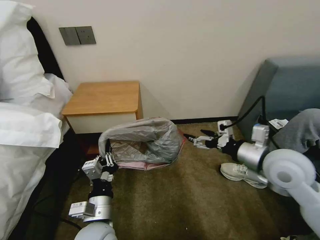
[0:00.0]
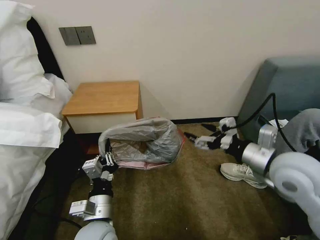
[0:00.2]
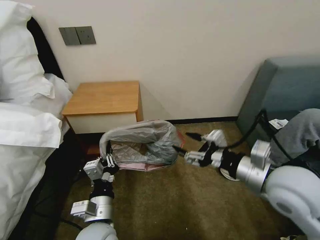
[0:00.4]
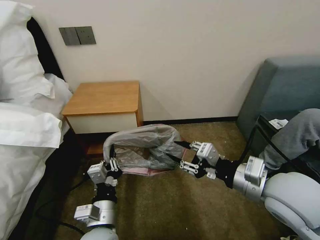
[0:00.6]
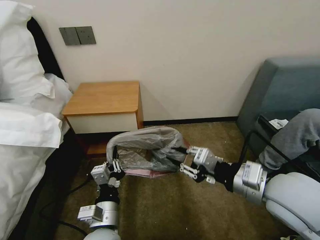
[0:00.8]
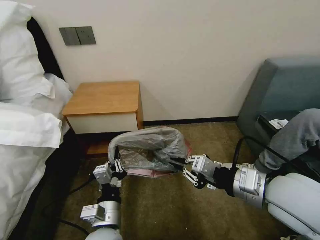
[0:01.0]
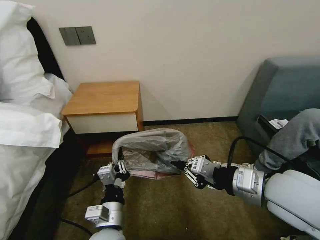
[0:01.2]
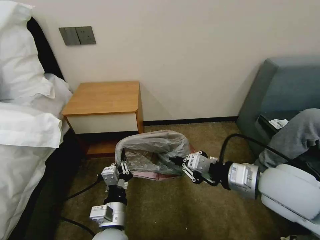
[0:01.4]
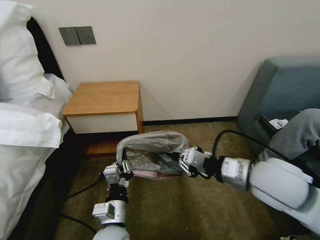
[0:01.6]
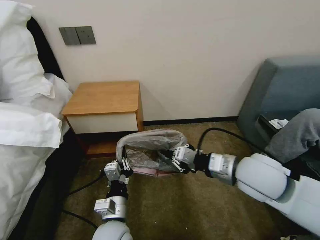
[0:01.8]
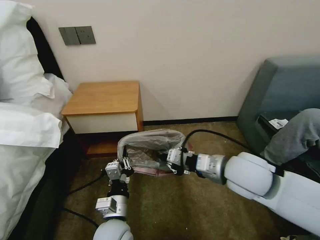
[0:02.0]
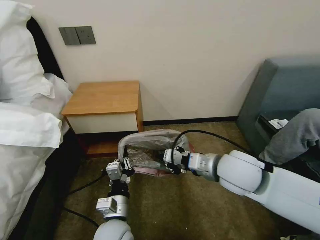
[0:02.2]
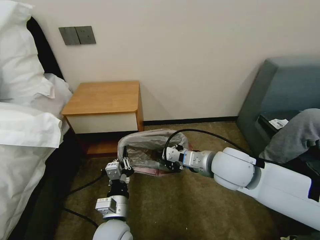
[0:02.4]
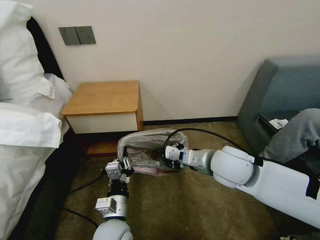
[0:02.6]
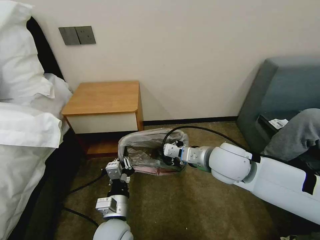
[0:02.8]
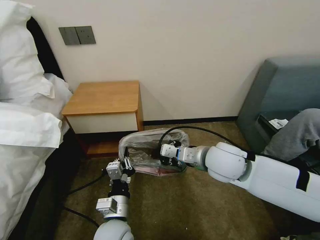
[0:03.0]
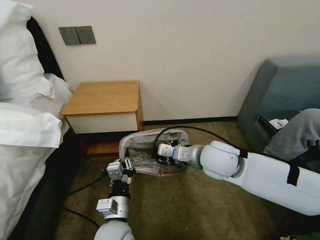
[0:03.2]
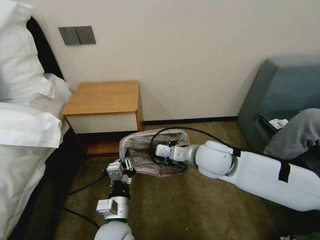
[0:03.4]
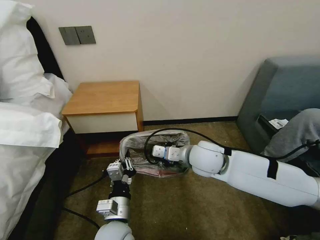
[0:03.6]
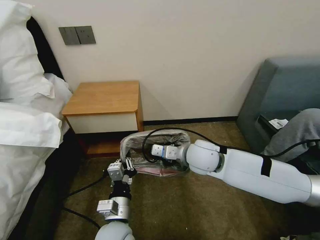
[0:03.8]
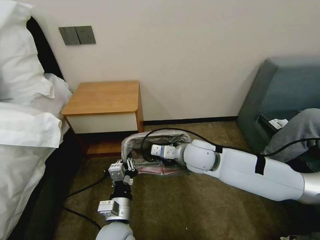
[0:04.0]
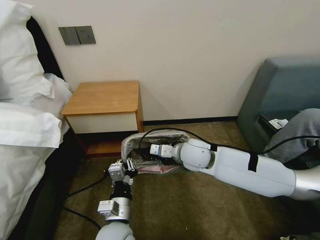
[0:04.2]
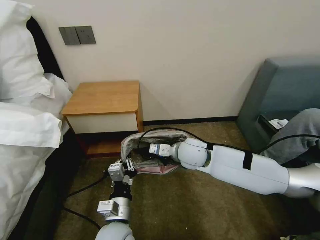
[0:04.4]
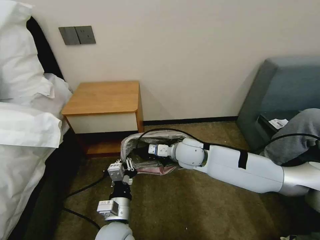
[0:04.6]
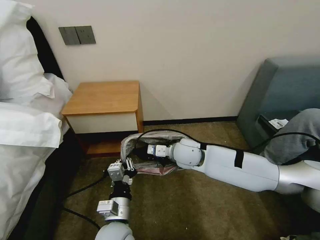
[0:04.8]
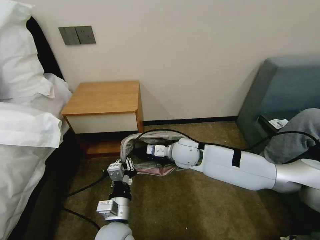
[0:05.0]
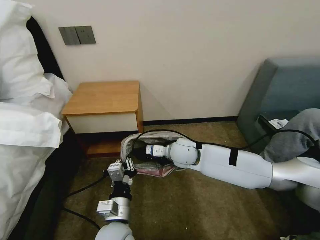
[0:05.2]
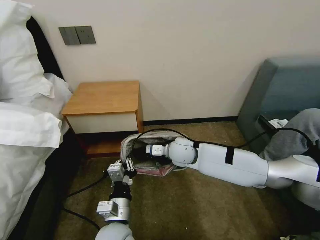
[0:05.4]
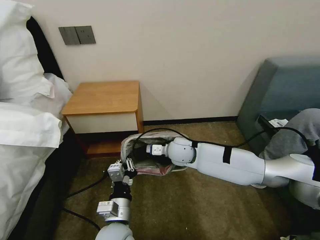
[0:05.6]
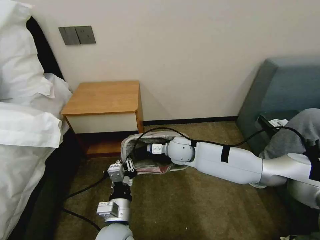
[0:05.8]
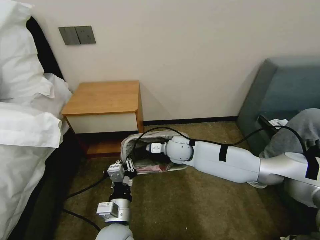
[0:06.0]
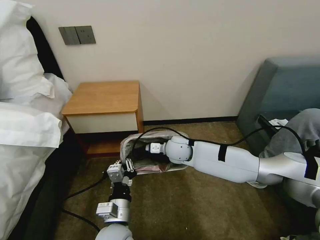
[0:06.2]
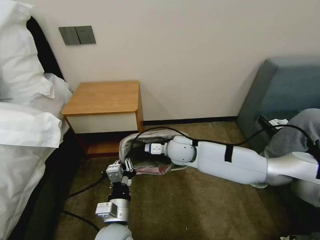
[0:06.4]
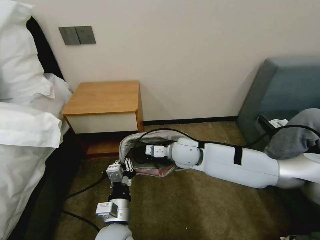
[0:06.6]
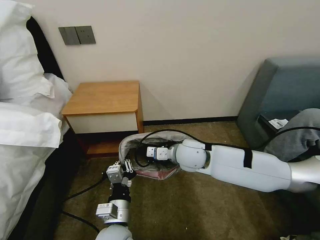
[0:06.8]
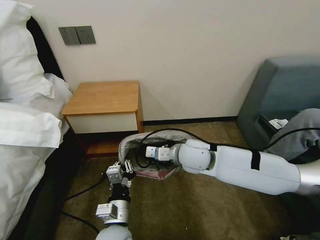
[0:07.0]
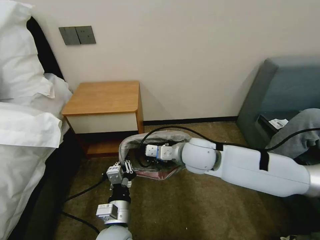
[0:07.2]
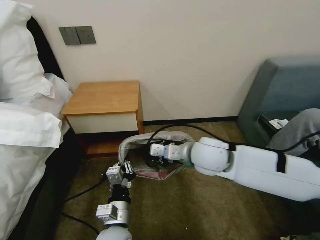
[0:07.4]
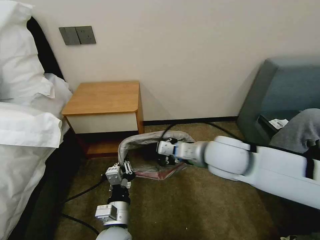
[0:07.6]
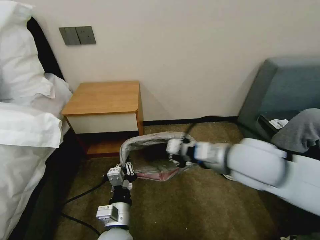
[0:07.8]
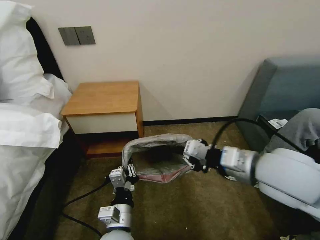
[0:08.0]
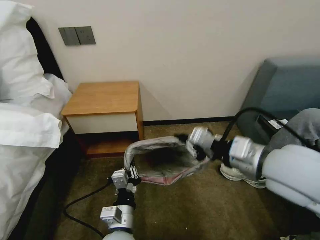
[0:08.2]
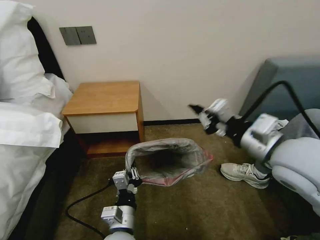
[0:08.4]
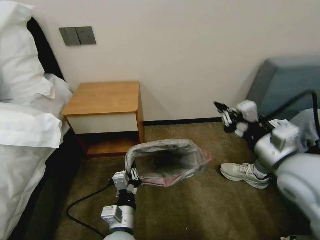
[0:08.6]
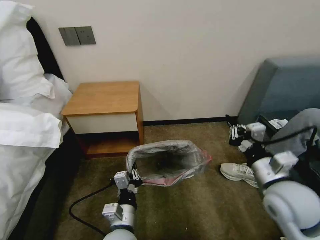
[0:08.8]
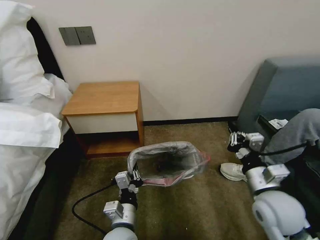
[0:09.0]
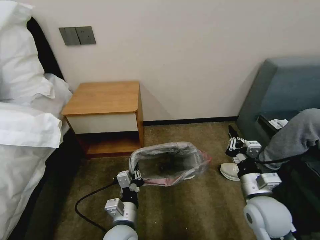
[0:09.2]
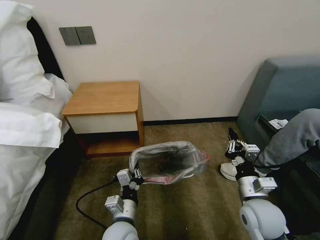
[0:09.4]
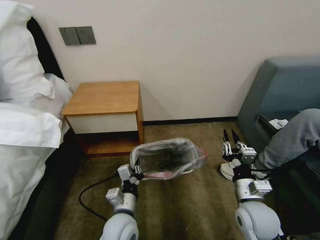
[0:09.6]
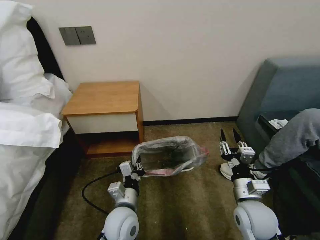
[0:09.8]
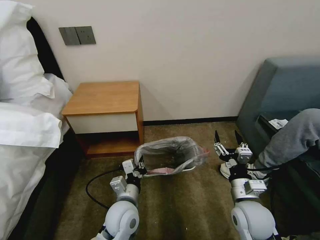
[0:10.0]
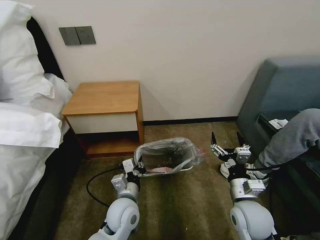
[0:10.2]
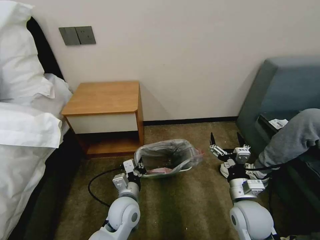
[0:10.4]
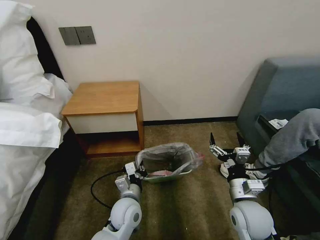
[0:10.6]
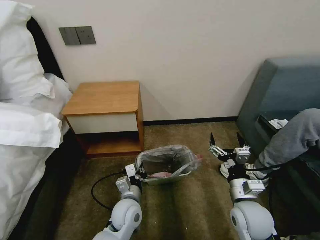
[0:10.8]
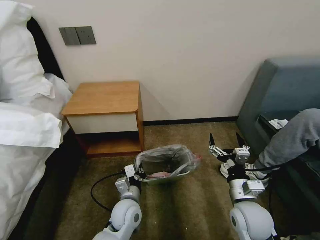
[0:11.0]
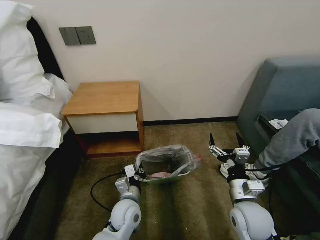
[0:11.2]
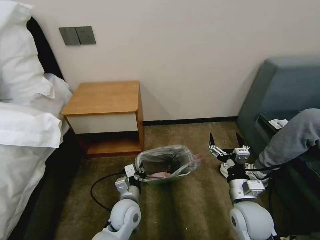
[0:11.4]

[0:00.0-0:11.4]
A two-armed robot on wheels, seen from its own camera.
Task of the whole recording: Pick up the garbage bag from the table and place it over the trash can.
0:00.0 to 0:01.4: The right gripper heads backward and to the left, covering approximately 10 cm, and closes its fingers.
0:01.4 to 0:02.8: The right gripper travels forward and to the left by roughly 10 cm.
0:02.8 to 0:04.2: The right gripper shifts approximately 10 cm to the left, forward and downward.
0:04.2 to 0:05.6: The right gripper changes place by some 5 cm.
0:05.6 to 0:07.2: The right gripper goes about 10 cm upward and backward.
0:07.2 to 0:08.6: The right gripper heads to the right, backward and upward, covering some 20 cm.
0:08.6 to 0:10.0: The right gripper moves downward, some 20 cm, and opens; the left gripper moves forward, about 10 cm.
0:10.0 to 0:11.4: The left gripper shifts by about 5 cm.

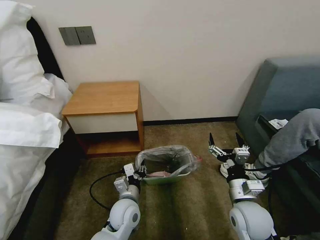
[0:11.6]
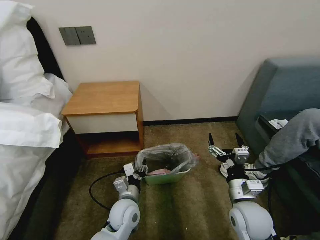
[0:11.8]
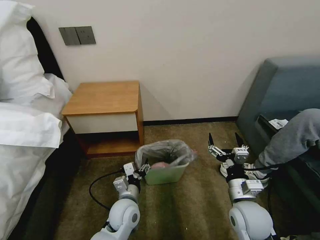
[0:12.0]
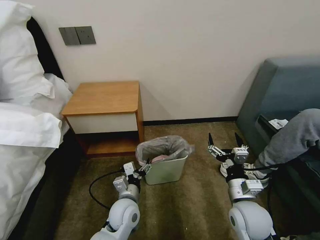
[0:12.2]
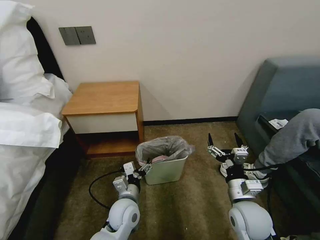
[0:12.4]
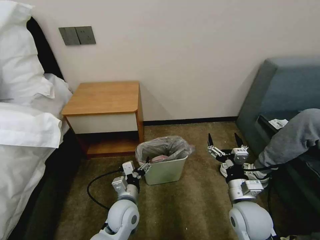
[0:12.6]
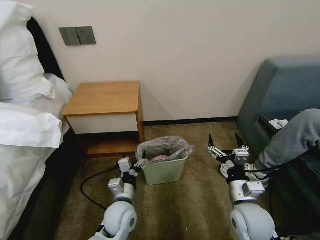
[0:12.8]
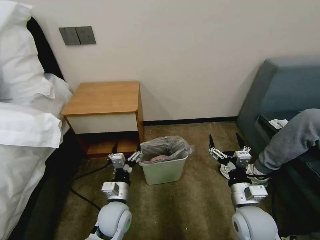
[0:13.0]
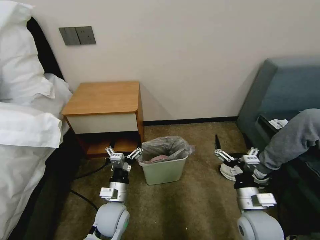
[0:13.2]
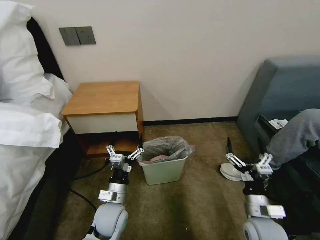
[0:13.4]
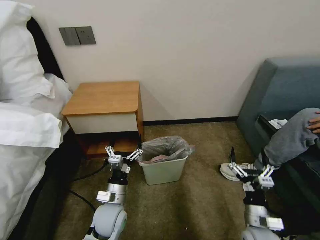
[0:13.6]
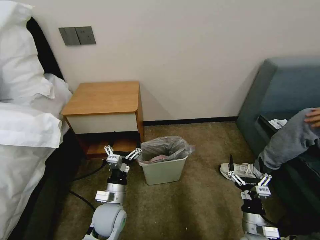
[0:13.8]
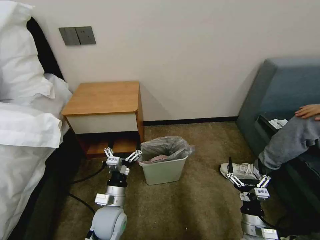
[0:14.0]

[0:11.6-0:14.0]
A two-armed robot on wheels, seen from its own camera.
Task of the whole recording: Pick up the garbage bag from the table and place it over the trash can.
0:11.6 to 0:12.8: The left gripper opens its fingers.
0:12.8 to 0:14.0: The right gripper is displaced downward, backward and to the right by approximately 15 cm.

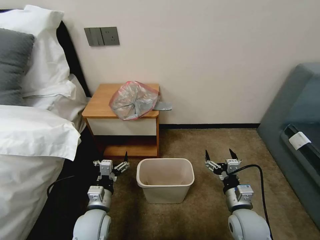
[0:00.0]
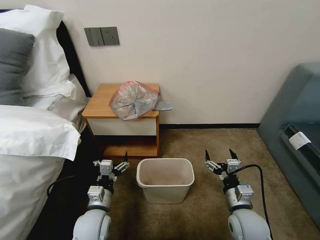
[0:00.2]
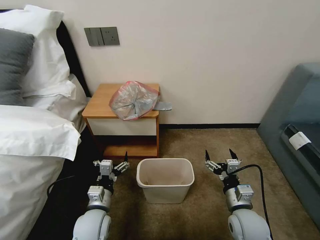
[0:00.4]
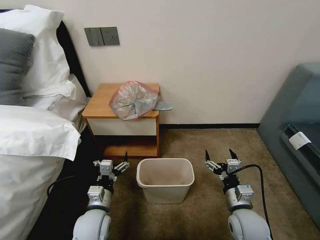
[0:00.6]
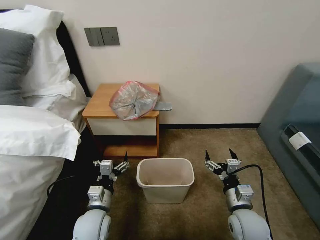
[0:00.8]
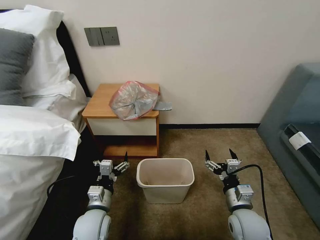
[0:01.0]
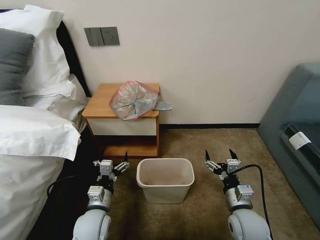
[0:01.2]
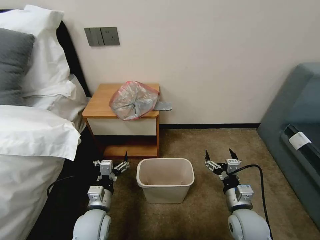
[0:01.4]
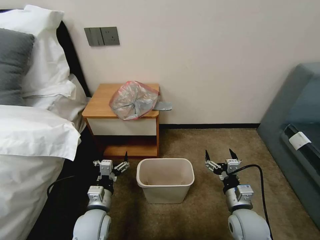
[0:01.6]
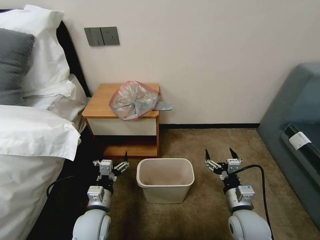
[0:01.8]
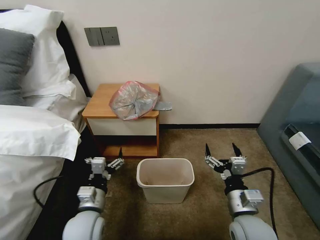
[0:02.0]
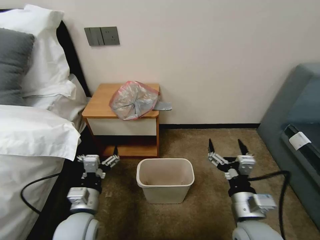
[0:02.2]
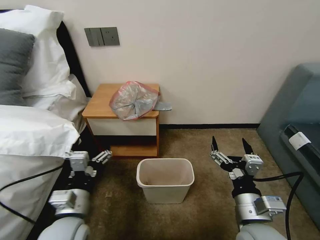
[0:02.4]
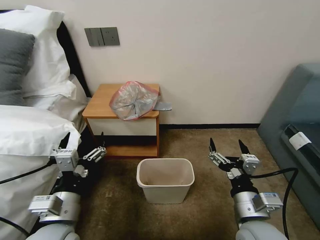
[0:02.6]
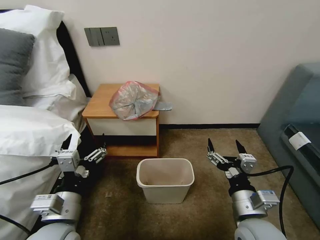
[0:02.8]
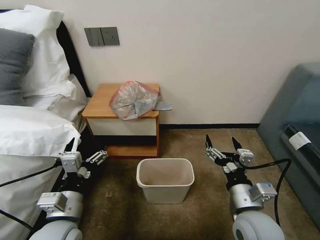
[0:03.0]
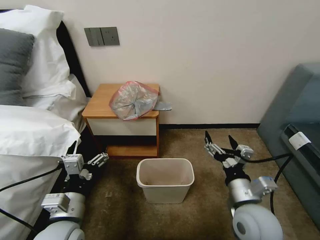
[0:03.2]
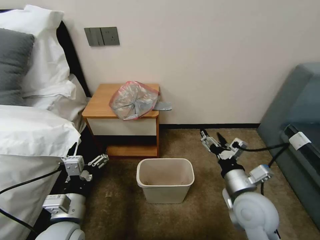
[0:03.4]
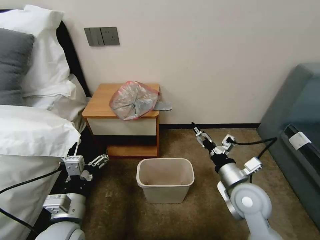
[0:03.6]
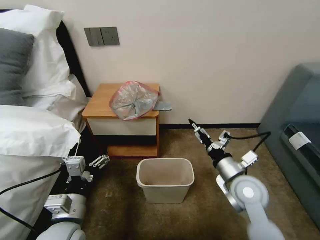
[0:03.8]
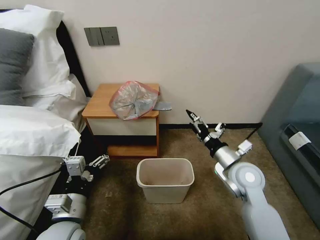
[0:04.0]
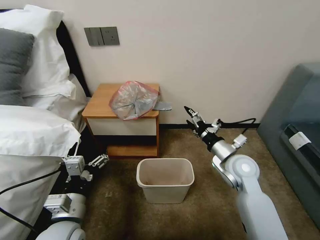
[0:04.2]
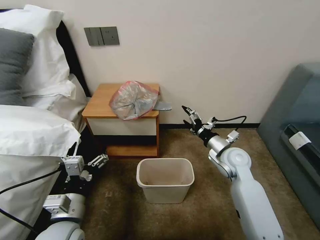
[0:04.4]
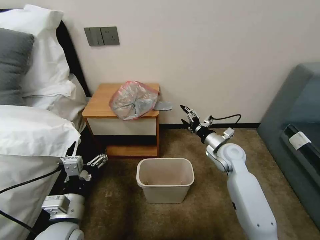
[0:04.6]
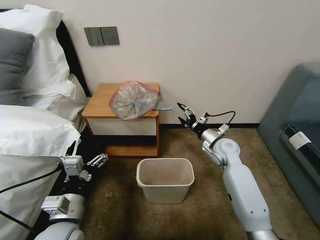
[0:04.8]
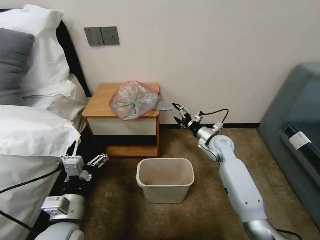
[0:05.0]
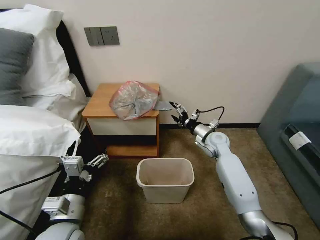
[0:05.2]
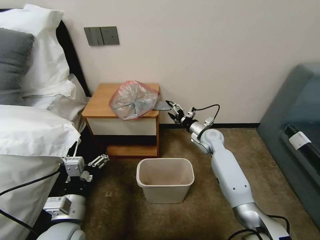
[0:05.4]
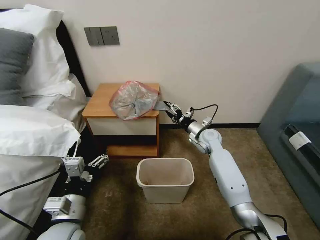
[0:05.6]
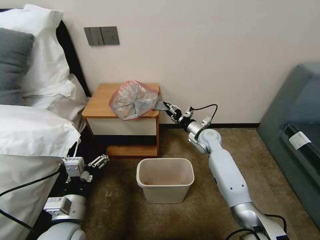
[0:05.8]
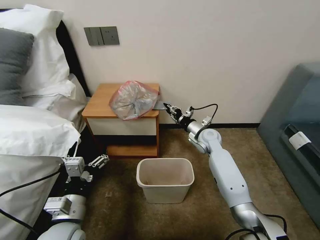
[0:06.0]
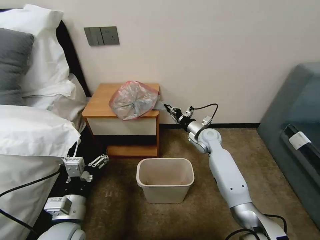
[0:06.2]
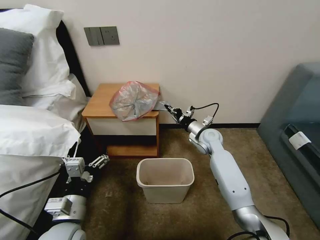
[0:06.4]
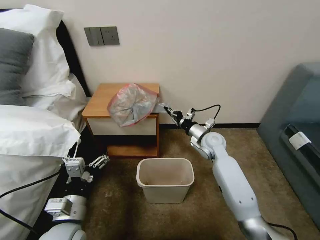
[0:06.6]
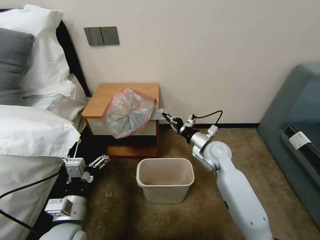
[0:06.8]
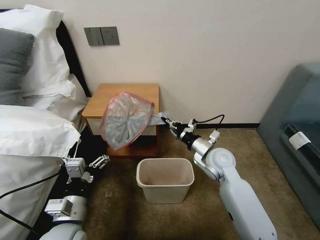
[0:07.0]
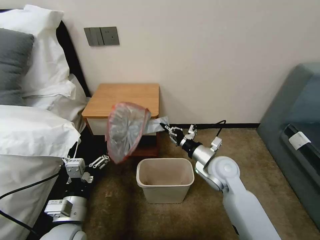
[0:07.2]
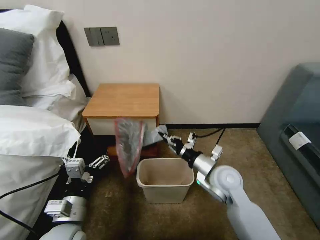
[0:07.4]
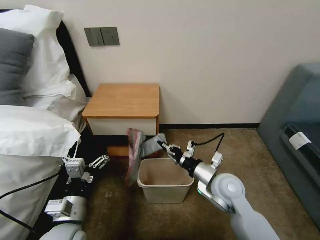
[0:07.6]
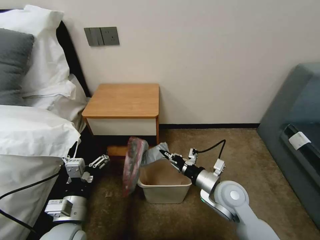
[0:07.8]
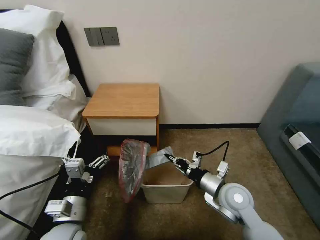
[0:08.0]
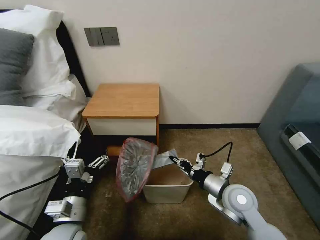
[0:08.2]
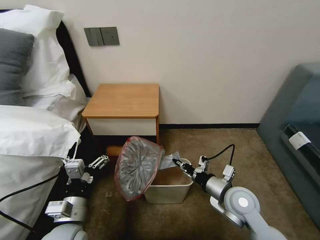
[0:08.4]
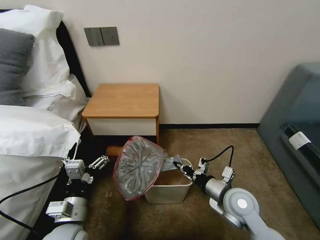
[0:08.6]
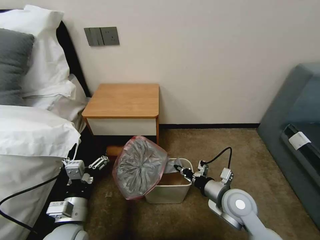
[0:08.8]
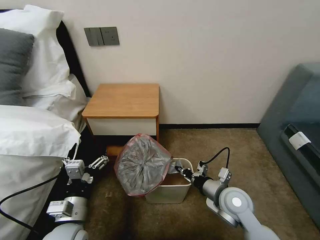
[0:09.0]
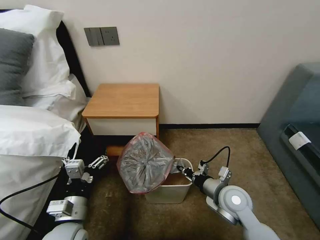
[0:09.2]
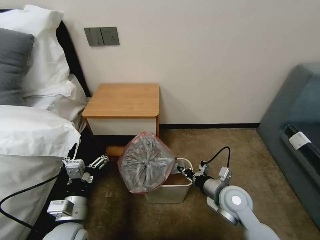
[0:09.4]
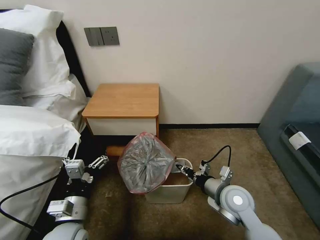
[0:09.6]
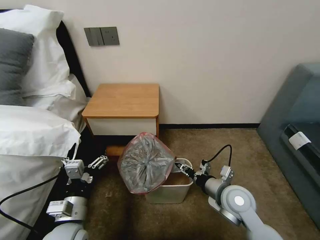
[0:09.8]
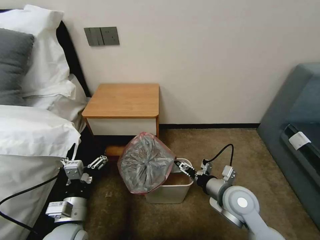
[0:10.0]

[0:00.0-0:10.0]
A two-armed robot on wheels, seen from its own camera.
Task of the whole recording: Pick up the garbage bag from the table and place it over the trash can.
0:01.4 to 0:02.8: The right gripper shifts roughly 10 cm upward, while the left gripper heads upward and backward, covering about 15 cm.
0:02.8 to 0:04.2: The right gripper is displaced forward by roughly 20 cm.
0:04.2 to 0:05.8: The right gripper goes approximately 15 cm forward, and closes.
0:05.8 to 0:07.2: The right gripper shifts some 15 cm backward, and closes up.
0:07.2 to 0:08.6: The right gripper shifts roughly 10 cm backward.
0:08.6 to 0:10.0: The right gripper opens its fingers.
